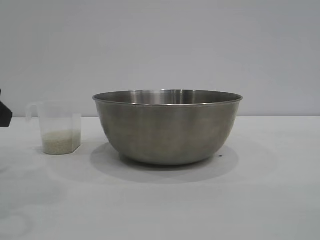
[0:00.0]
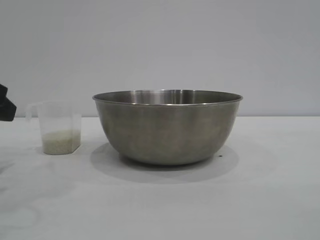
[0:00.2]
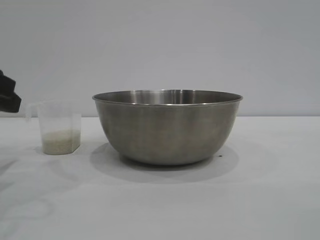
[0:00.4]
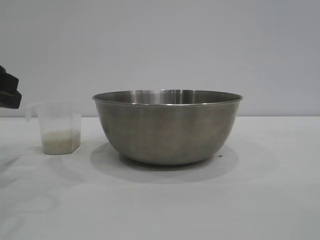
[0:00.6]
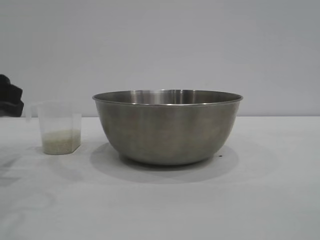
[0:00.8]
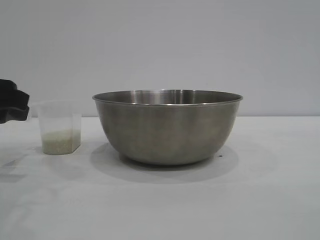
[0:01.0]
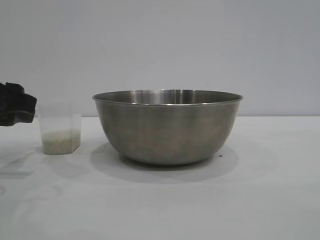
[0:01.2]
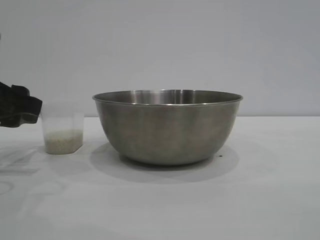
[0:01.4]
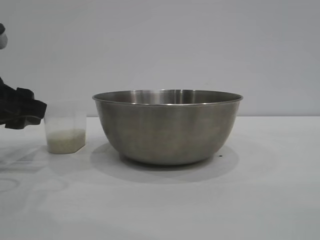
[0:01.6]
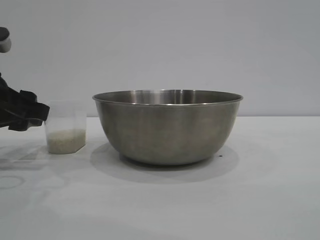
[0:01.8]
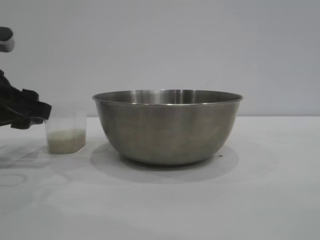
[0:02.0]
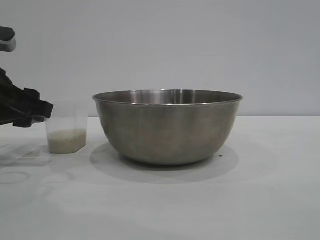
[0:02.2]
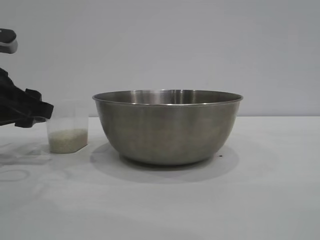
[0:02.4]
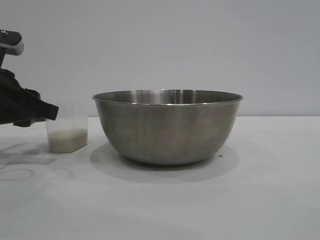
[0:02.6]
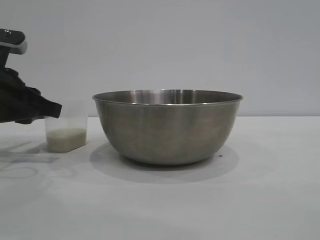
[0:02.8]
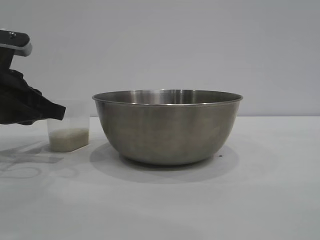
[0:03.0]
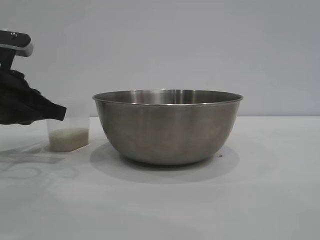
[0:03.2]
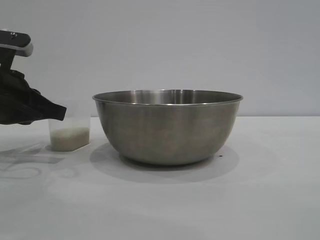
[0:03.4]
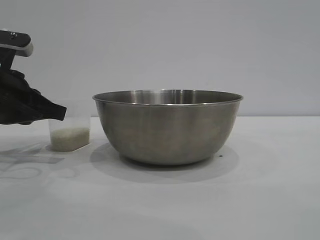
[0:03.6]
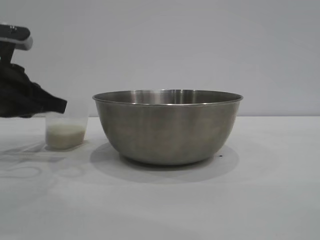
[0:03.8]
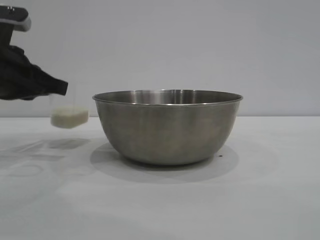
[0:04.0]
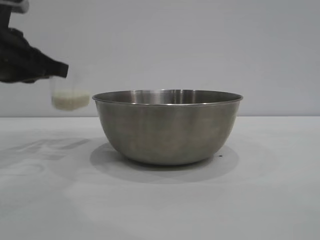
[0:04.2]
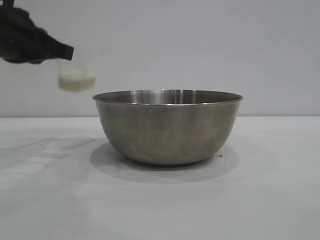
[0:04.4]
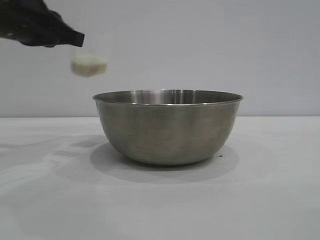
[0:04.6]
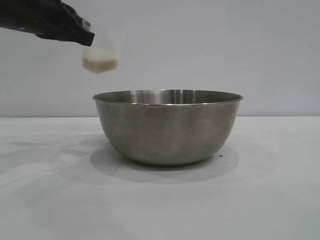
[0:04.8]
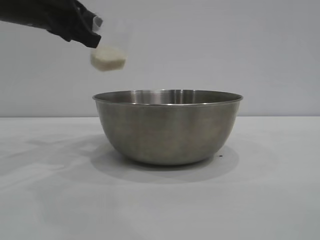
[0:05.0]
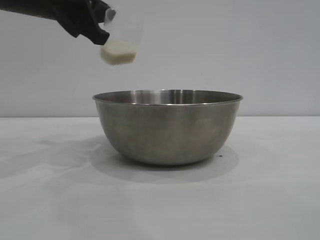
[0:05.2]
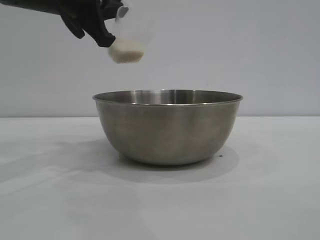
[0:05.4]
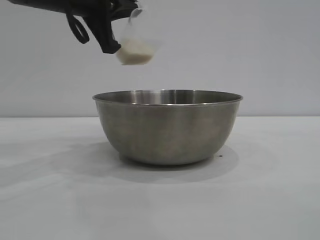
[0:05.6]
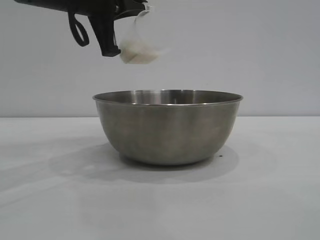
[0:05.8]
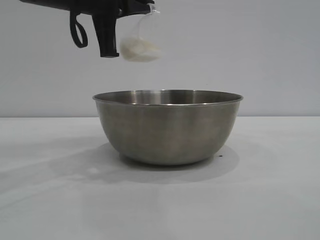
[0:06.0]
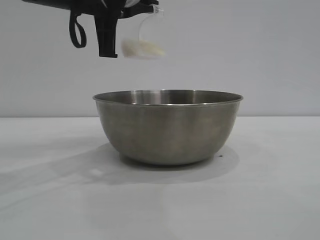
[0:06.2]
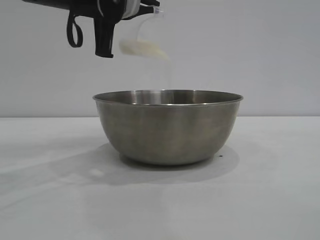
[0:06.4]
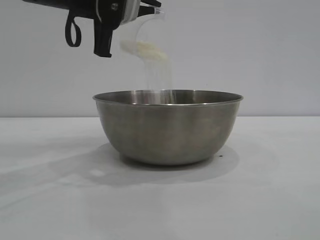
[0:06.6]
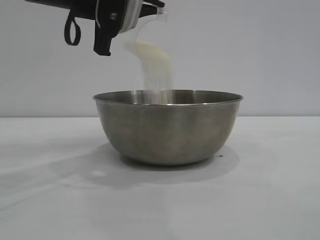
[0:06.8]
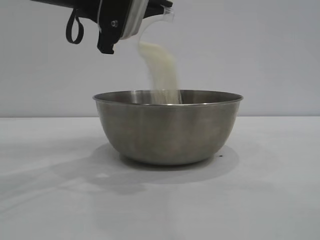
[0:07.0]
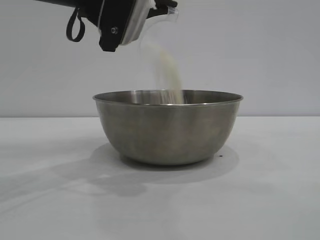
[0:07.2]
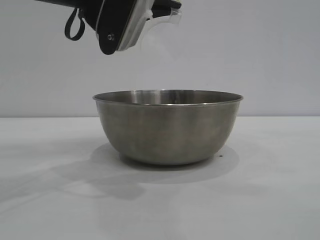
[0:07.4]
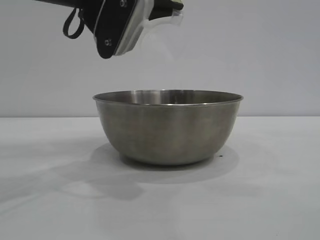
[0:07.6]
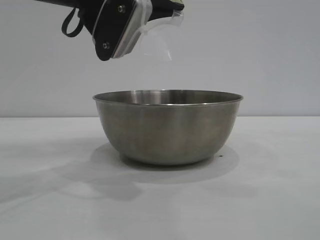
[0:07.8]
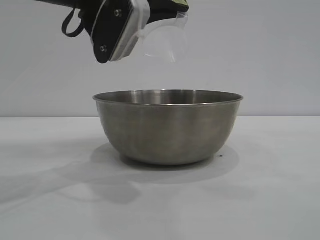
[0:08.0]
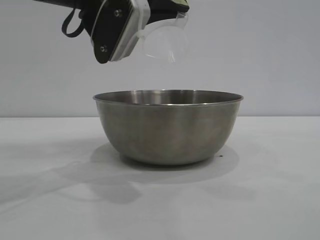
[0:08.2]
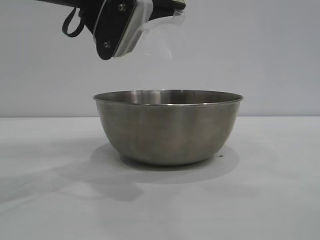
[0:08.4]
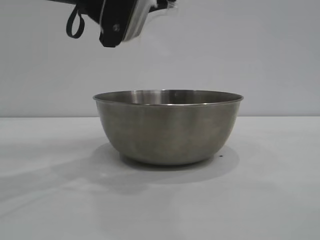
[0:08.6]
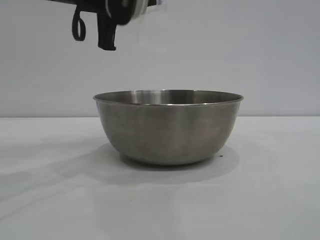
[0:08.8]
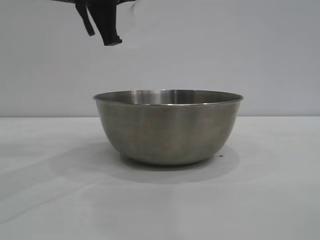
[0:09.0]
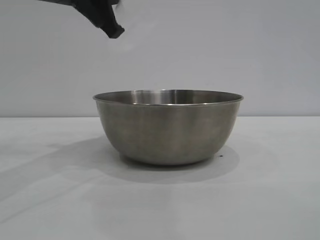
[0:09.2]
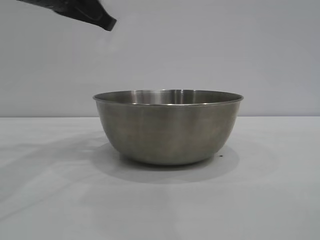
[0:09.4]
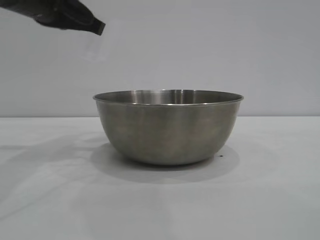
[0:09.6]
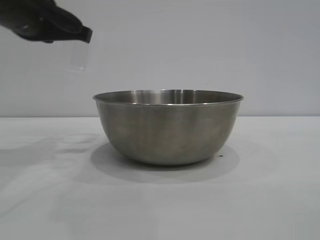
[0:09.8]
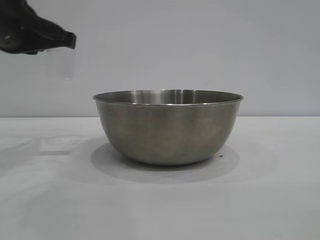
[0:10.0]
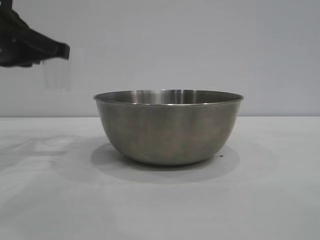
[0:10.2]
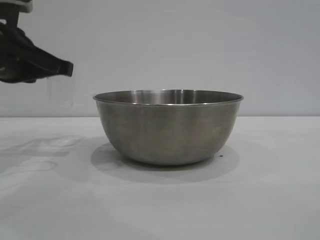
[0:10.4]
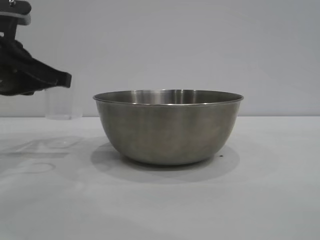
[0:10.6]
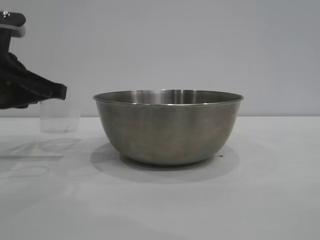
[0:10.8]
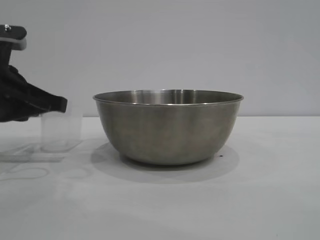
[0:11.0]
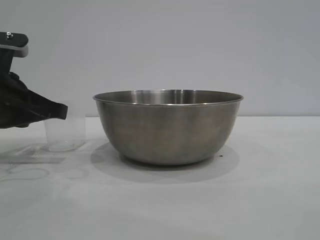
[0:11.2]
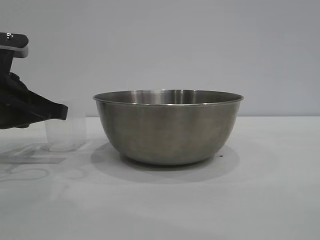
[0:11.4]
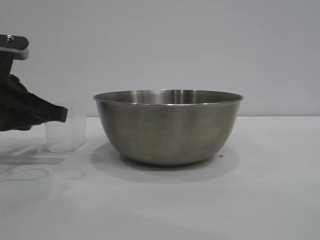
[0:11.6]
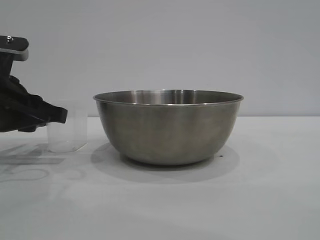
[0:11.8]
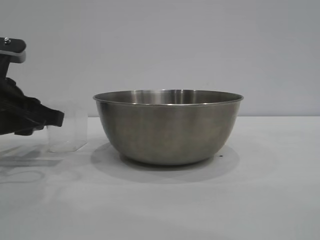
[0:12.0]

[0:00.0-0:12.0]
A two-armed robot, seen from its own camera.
Task of the whole recording: the right gripper grasp the rice container and place it in the center of the table, the left gripper grasp the rice scoop and pour the rice into the rice container.
Step, 0:00.0 to 0:04.0: Pick up the cup with rice in it with the left gripper.
Step, 0:04.2 to 0:09.0: Pour the rice from the cup into the bowl with the left gripper.
